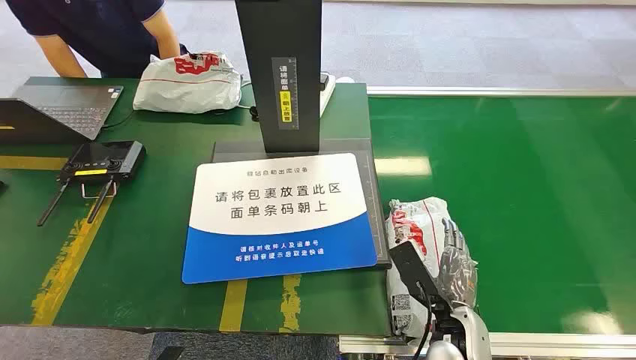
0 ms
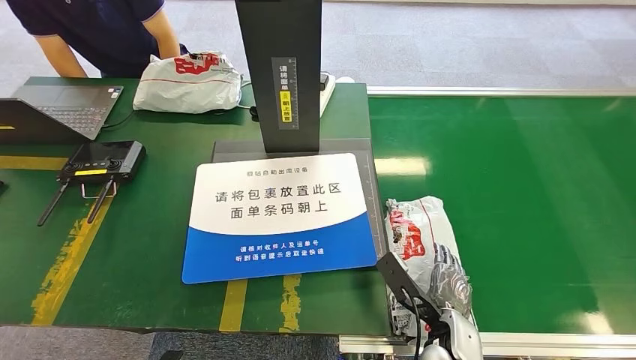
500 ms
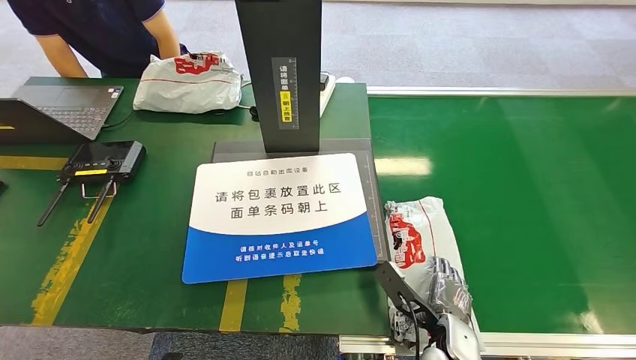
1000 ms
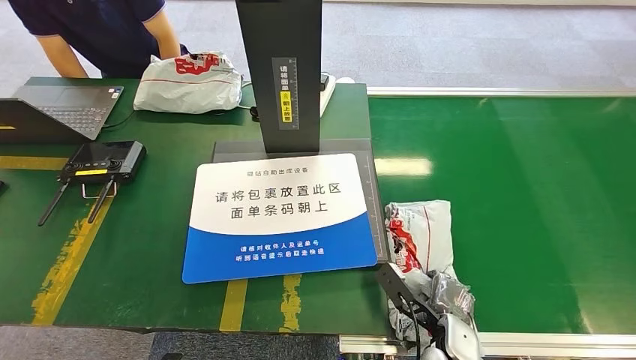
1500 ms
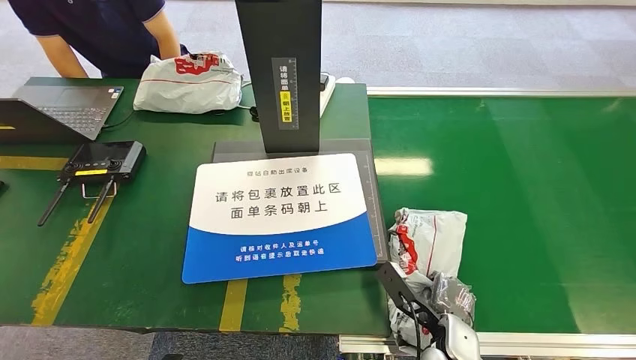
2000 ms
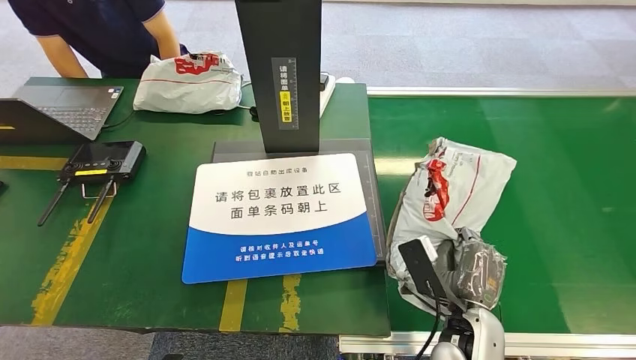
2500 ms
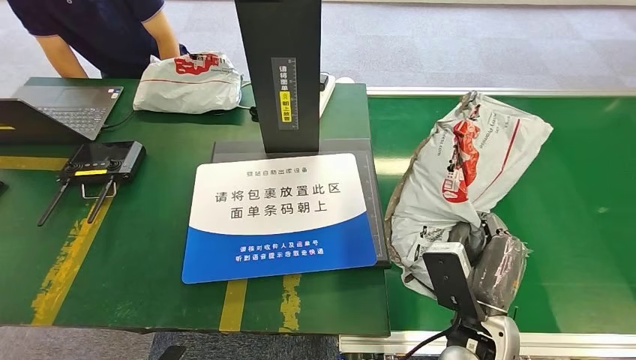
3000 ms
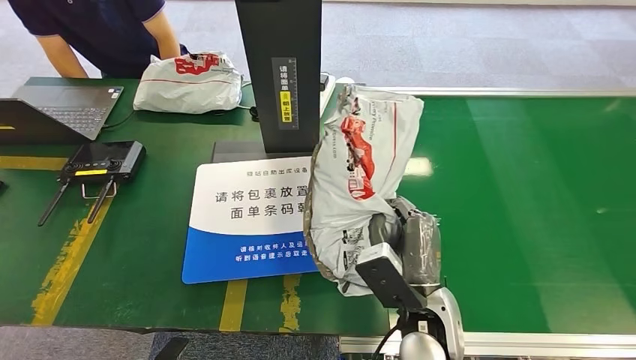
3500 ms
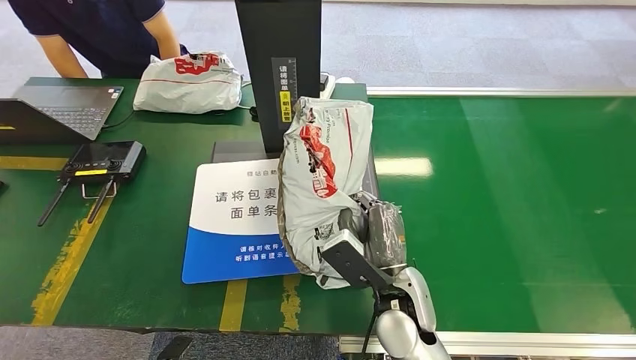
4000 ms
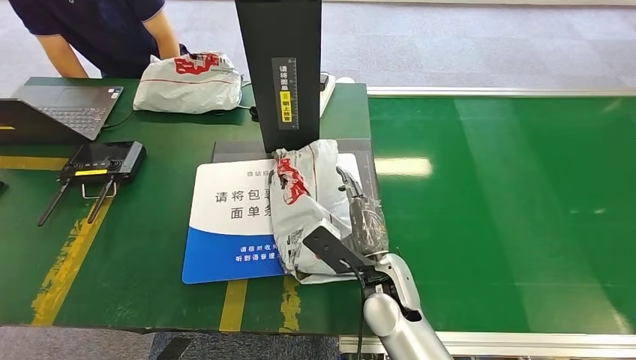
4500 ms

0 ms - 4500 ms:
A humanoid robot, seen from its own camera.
Step, 0 ms - 2500 ms: Pick up the package from the conveyor belt.
Step, 3000 ms - 4500 ms: Place the package onto the inbound machine.
2000 ms - 4500 ms: The right hand moves to the left, forward and upward, some 15 cm.

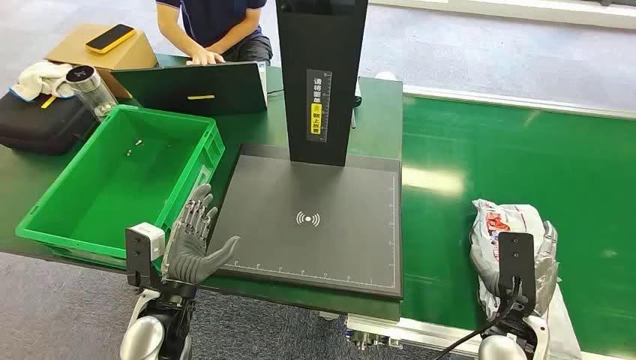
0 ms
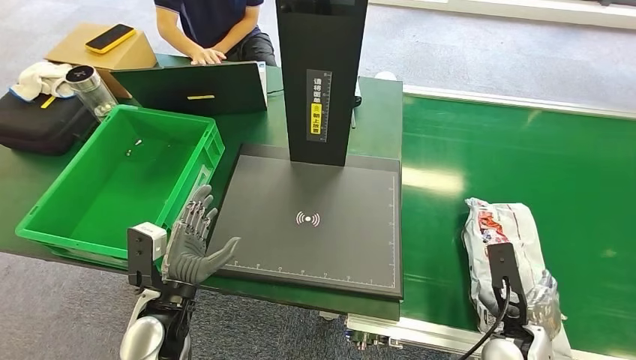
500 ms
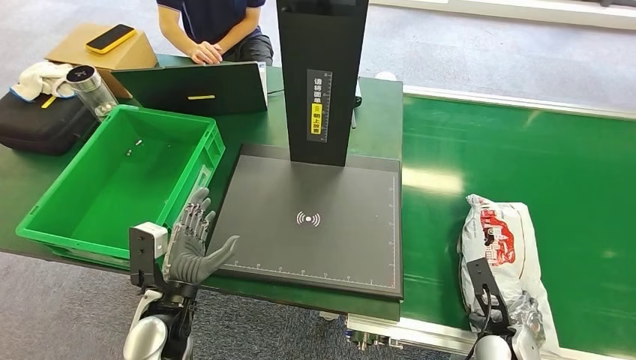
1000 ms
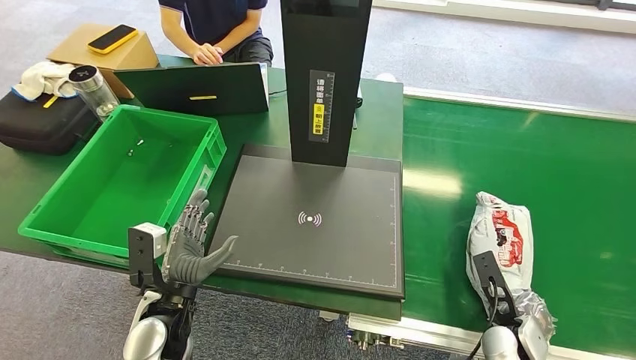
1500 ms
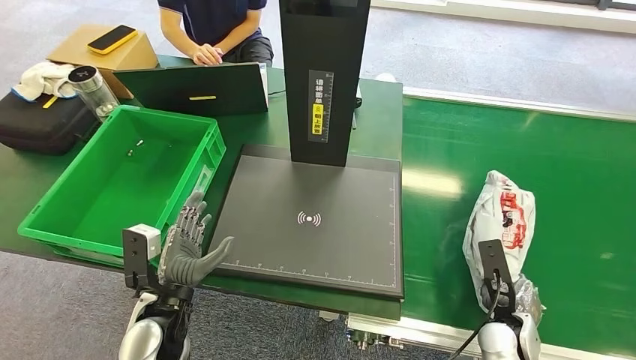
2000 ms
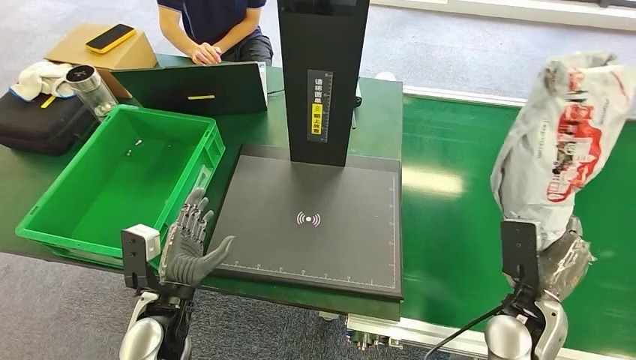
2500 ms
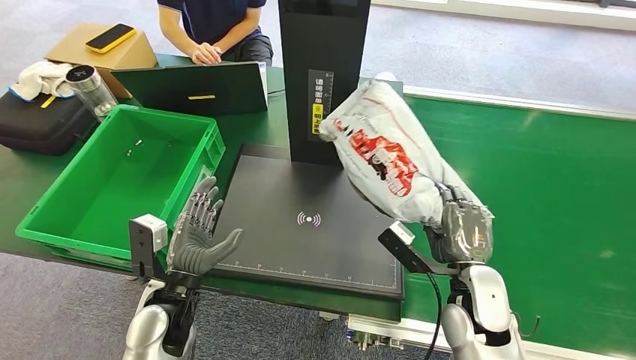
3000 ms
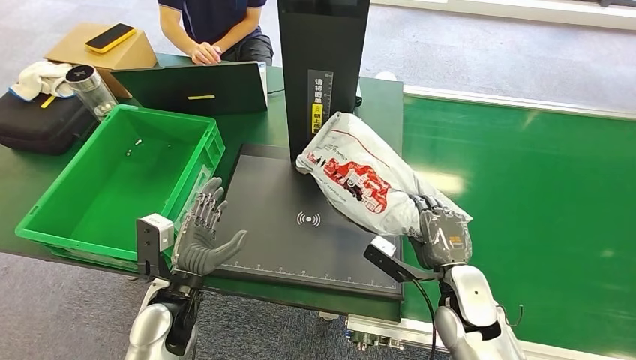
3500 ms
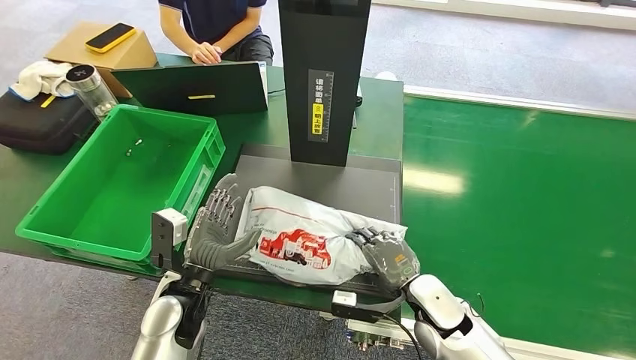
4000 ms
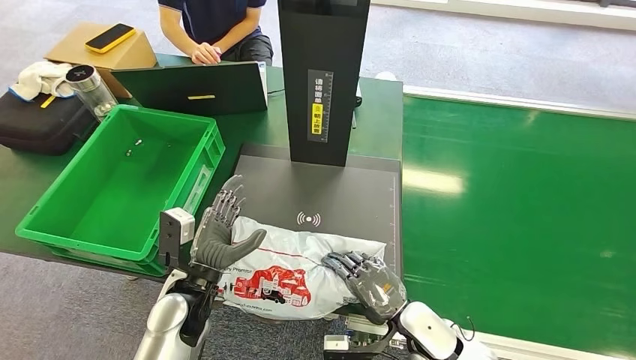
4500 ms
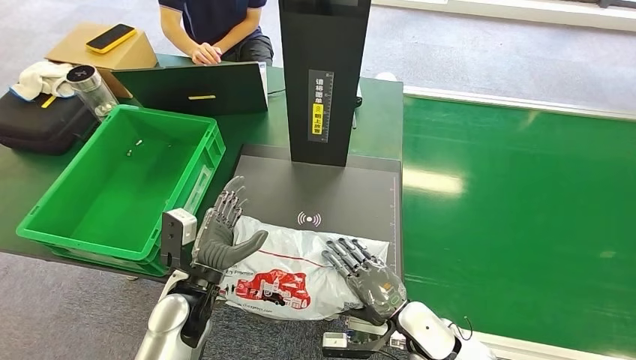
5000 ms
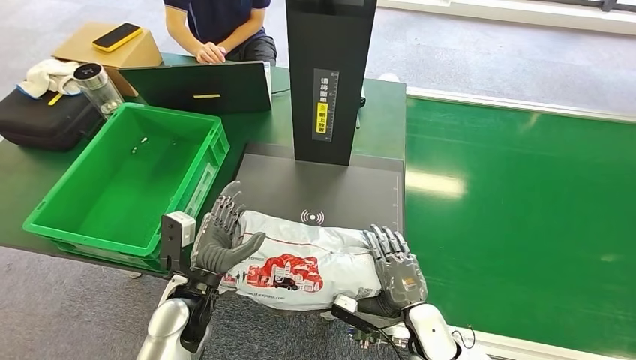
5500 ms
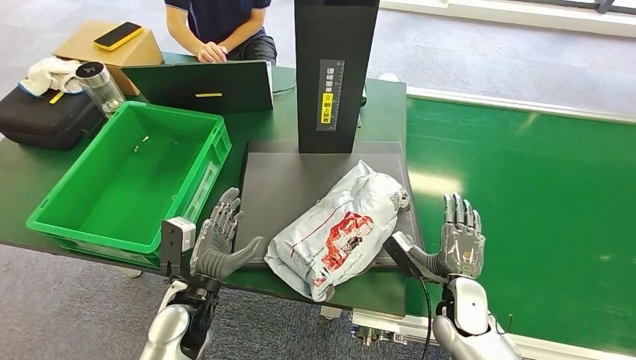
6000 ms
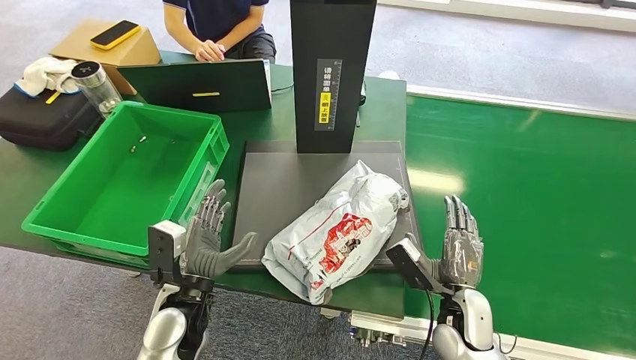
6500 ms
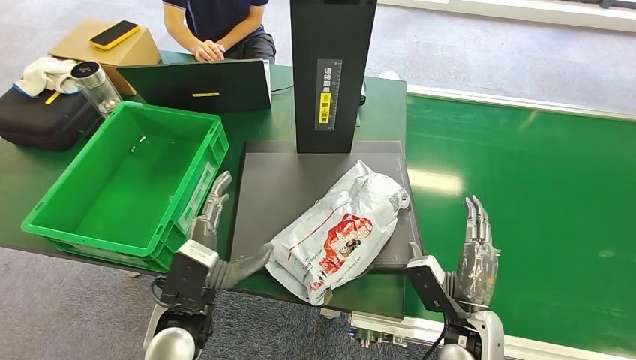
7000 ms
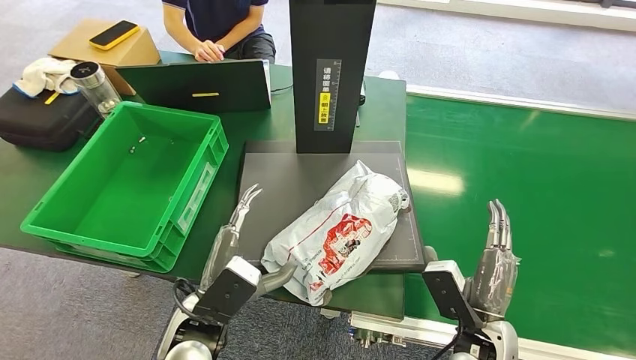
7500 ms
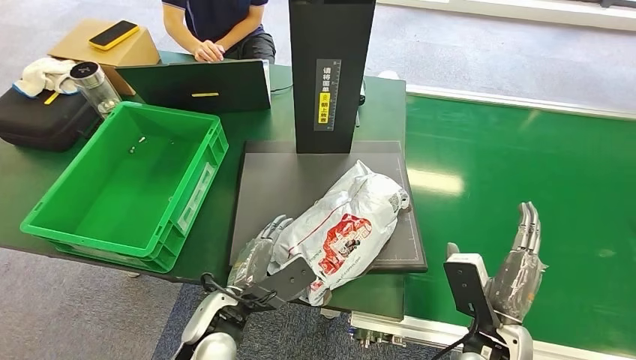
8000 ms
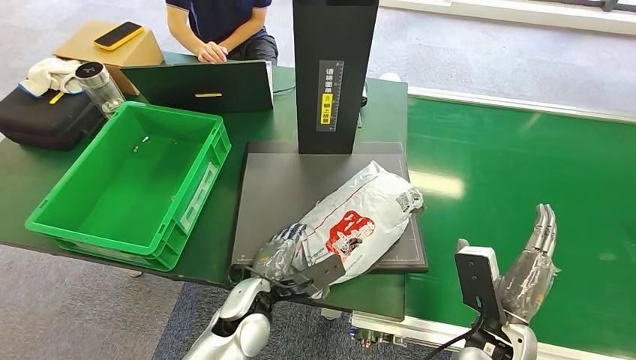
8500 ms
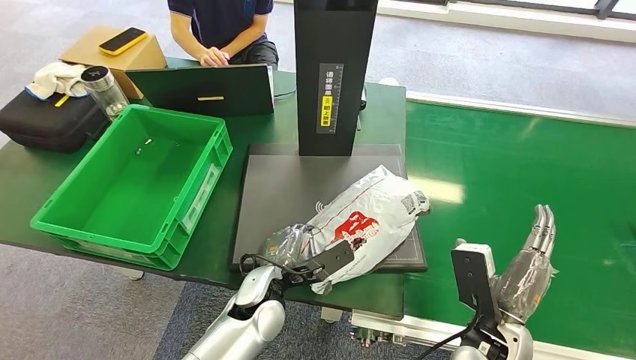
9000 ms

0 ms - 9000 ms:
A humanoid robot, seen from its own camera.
Step, 0 ms - 2500 ms: Pick up the package from the conveyor belt.
Step, 3000 ms - 7000 ms: Place the package onto the inbound machine.

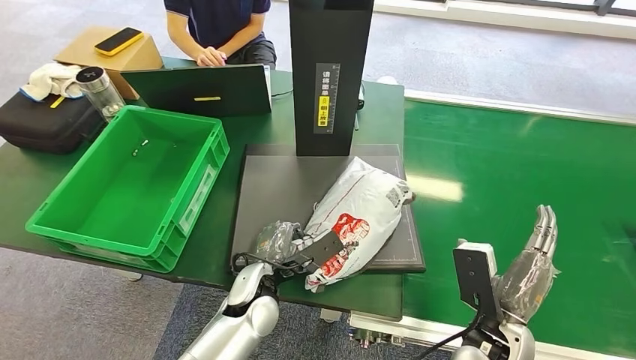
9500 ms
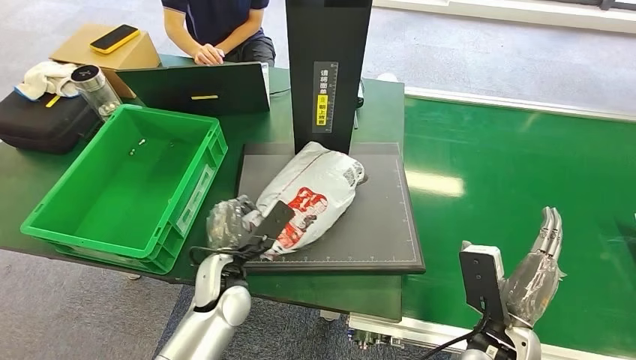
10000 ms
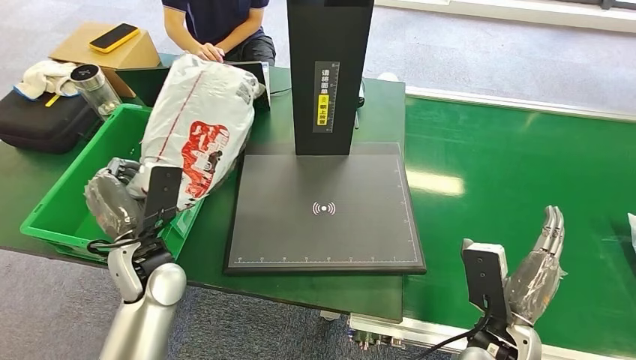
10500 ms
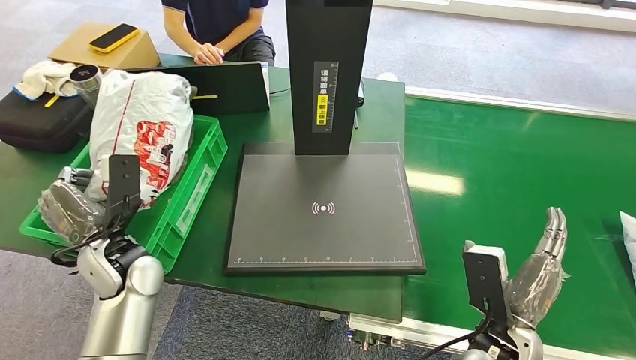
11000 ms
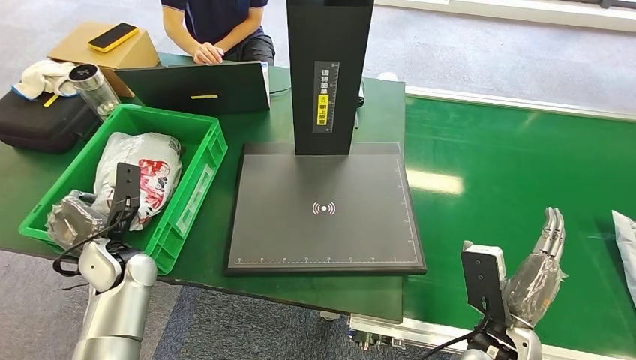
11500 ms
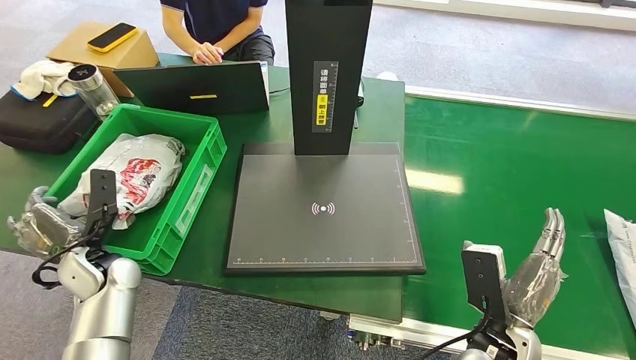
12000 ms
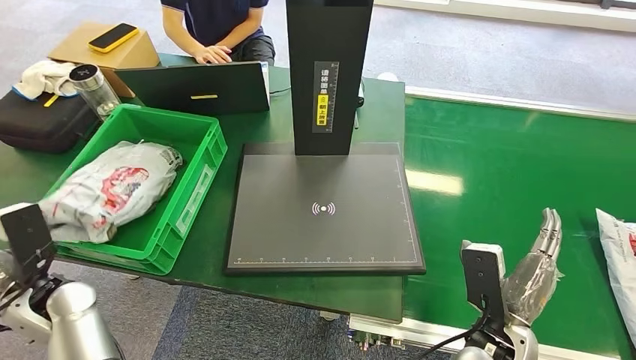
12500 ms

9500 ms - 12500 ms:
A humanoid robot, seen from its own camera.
Step, 11000 ms - 12500 ms: Place the package into the parcel locker.
11000 ms - 12500 ms: The left hand goes roughly 10 cm to the left.
